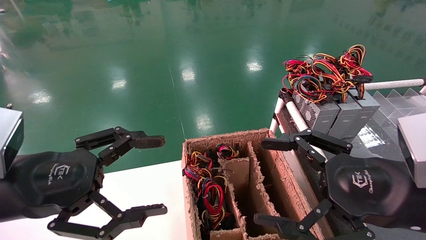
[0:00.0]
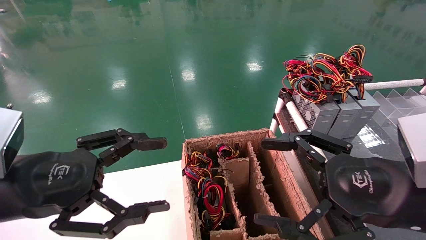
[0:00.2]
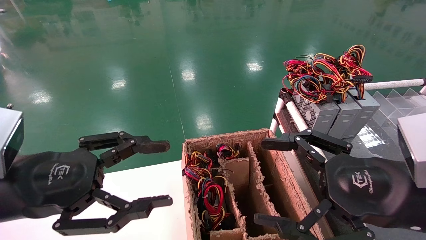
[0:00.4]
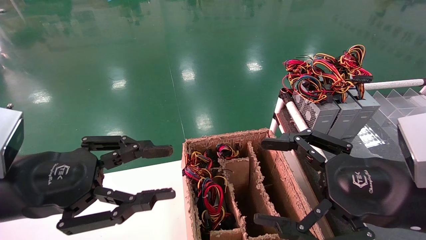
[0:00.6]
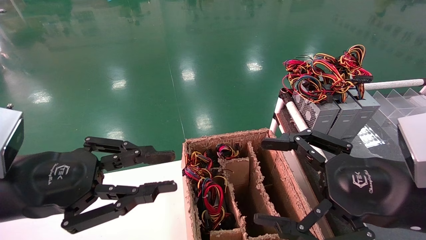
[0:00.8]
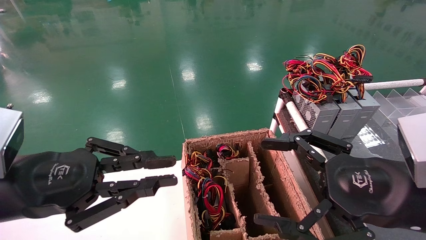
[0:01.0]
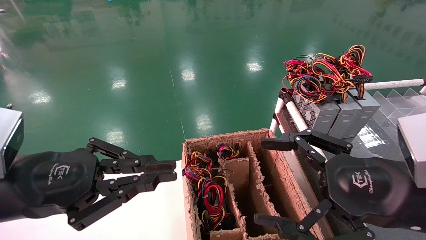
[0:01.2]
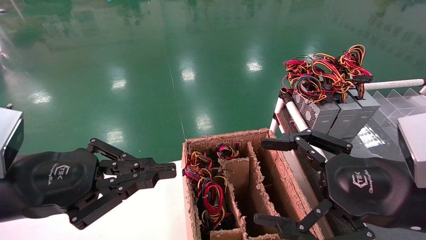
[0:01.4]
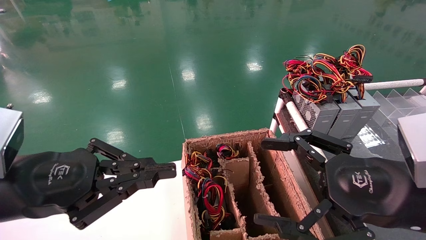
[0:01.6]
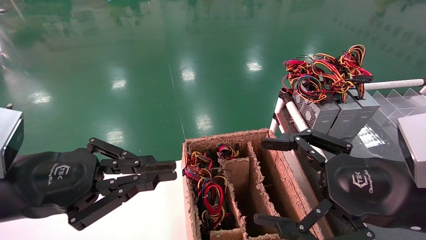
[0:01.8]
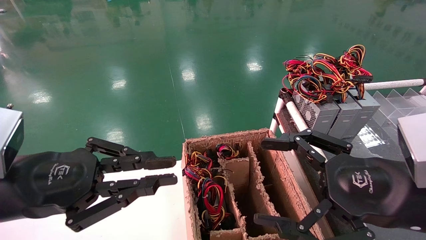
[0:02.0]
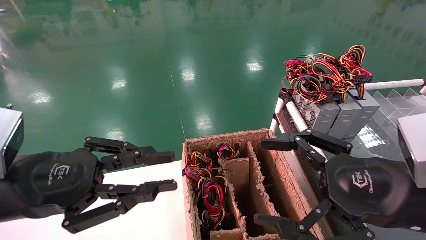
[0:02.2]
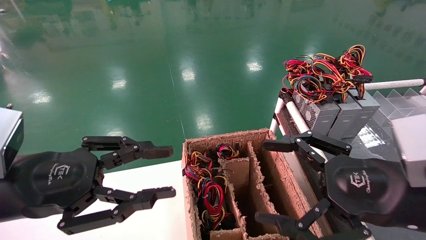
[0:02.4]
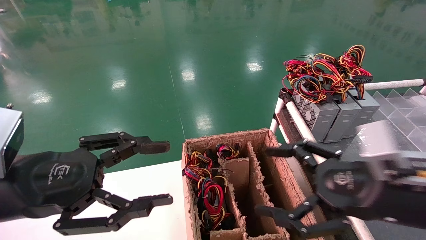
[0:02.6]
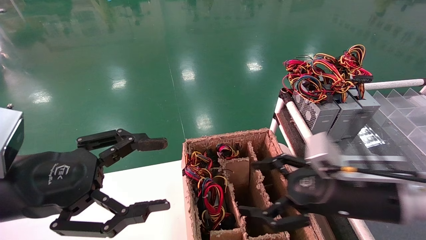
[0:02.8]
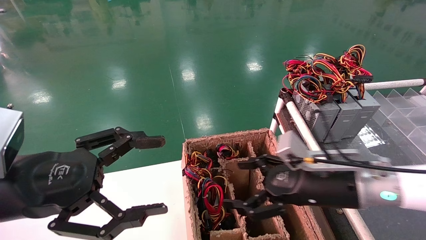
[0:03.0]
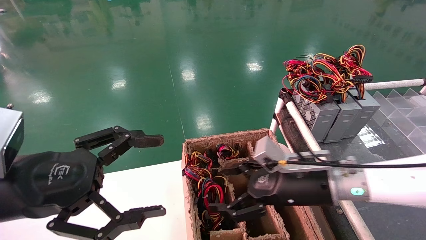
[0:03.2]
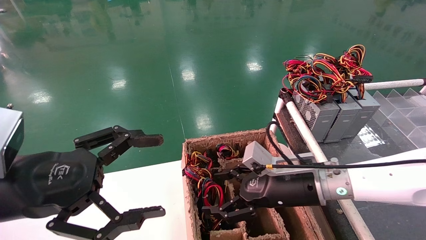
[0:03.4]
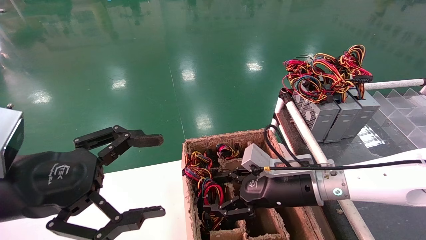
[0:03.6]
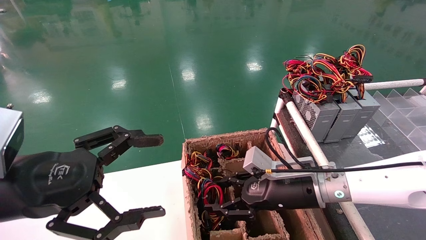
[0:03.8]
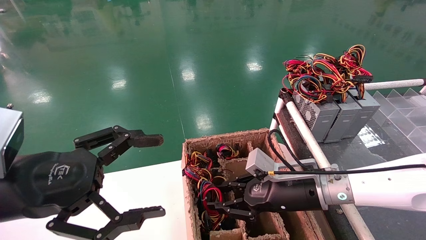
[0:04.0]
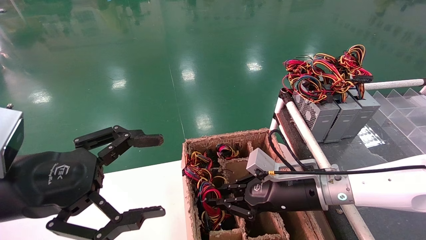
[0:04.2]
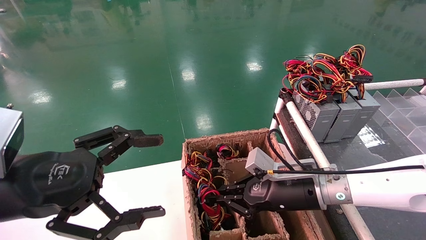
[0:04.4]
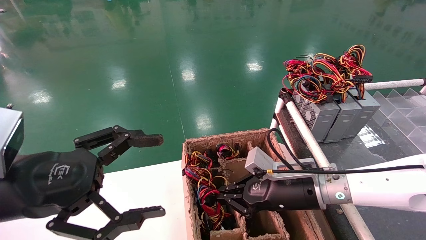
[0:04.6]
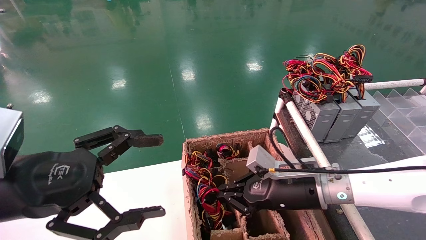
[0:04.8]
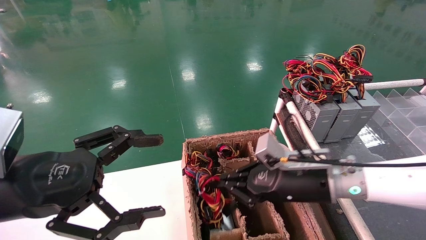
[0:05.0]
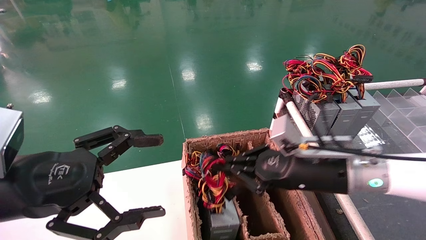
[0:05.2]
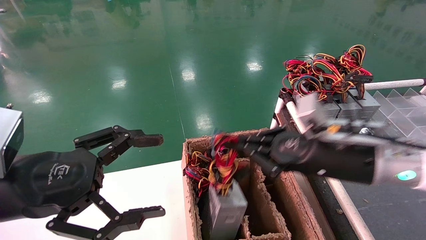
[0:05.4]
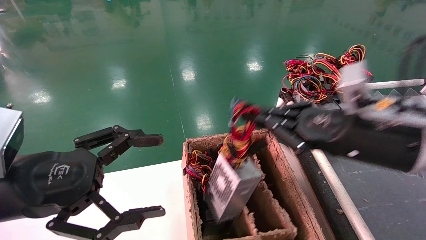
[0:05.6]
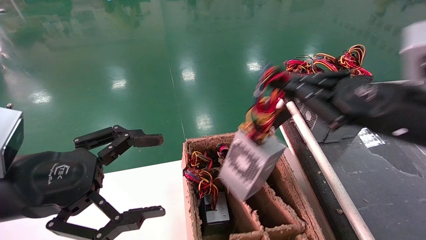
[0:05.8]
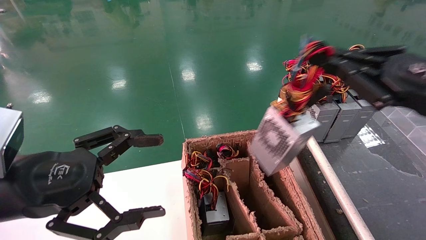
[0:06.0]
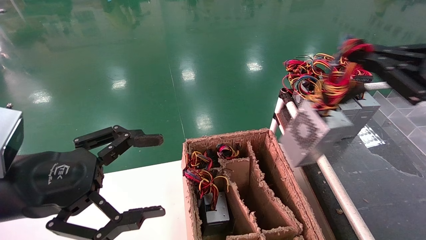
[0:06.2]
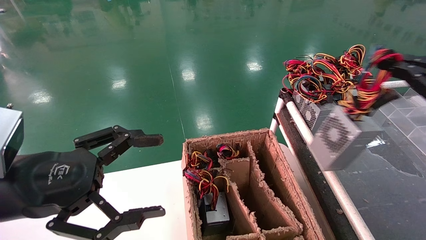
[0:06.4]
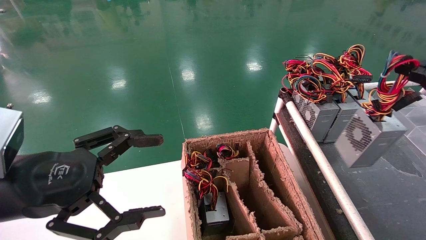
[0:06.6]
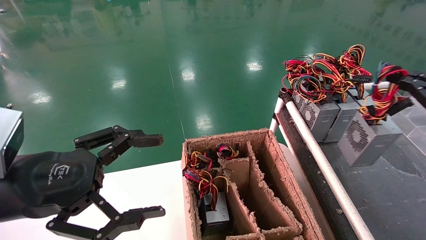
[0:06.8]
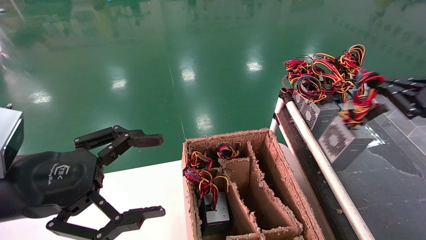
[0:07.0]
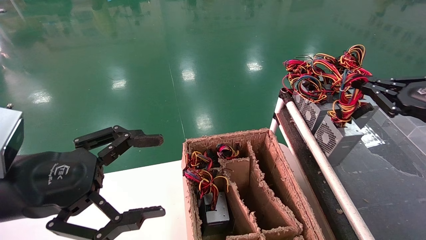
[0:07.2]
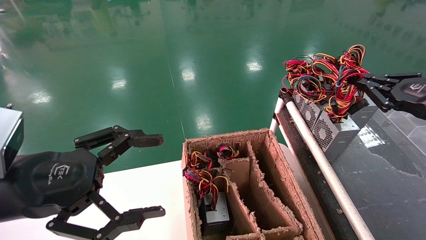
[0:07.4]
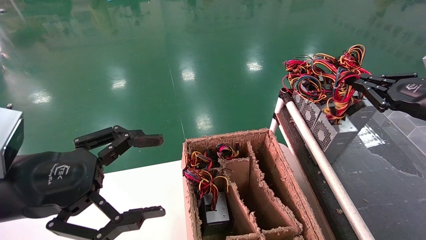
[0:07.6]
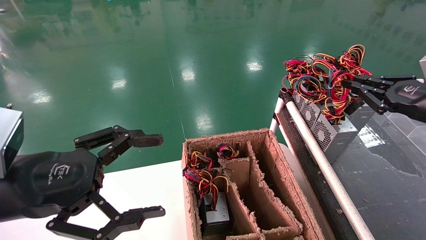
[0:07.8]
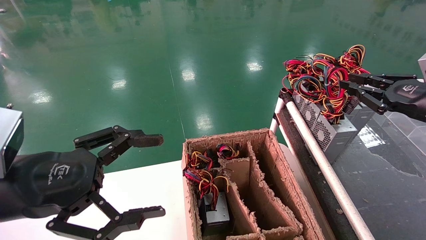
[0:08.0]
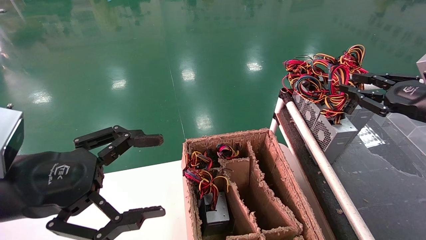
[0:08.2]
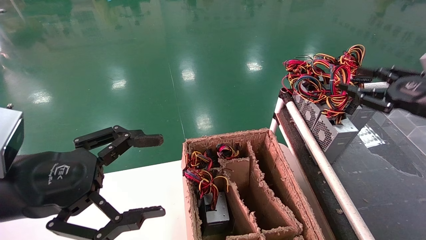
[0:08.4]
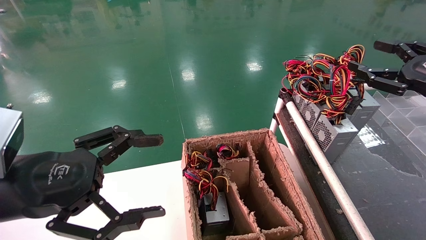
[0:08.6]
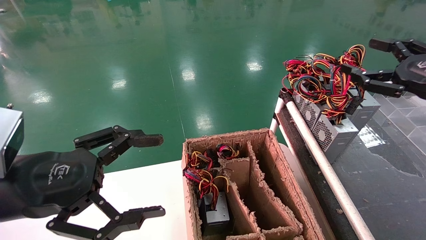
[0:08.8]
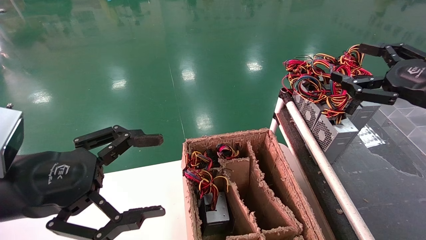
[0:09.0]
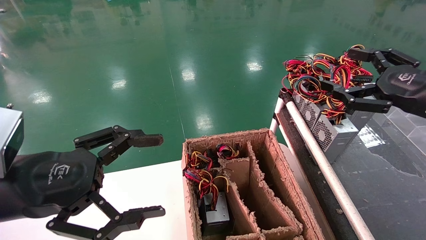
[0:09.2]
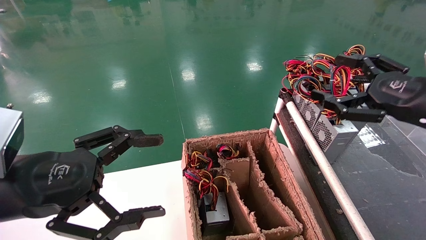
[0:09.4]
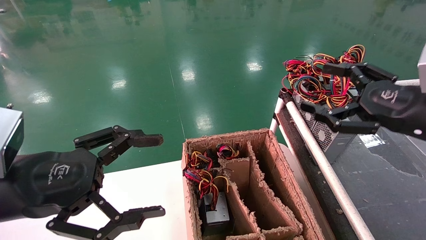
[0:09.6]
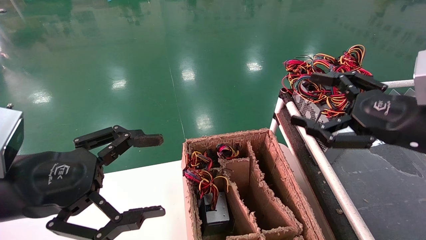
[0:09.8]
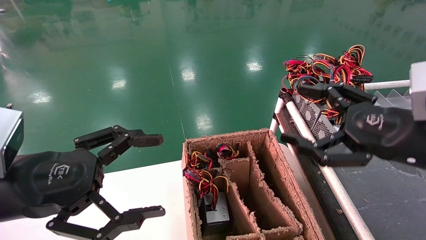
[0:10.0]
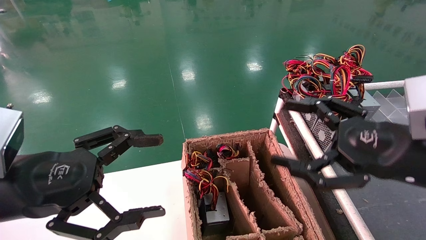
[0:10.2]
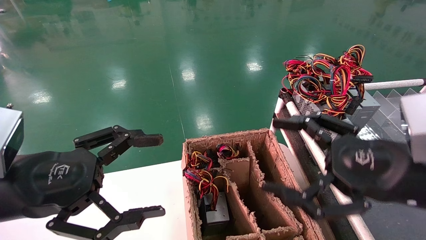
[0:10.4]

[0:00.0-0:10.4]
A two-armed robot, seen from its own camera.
Step, 0:01.4 to 0:04.6: Grab and lift the power supply from the large box.
Step, 0:04.8 to 0:08.0: Place the power supply on the operating table.
0:00.0 to 0:01.4: The left gripper closes its fingers.
0:01.4 to 0:03.0: The left gripper opens. Meanwhile the right gripper is displaced forward and downward by about 15 cm.
0:03.0 to 0:04.4: The right gripper changes place by roughly 5 cm, and closes.
0:04.4 to 0:06.0: The right gripper travels upward, to the right and backward by about 25 cm.
0:06.0 to 0:07.4: The right gripper shifts roughly 10 cm to the right and forward.
0:07.4 to 0:09.0: The right gripper opens up.
0:09.0 to 0:10.4: The right gripper heads to the left, backward and downward, covering about 15 cm.

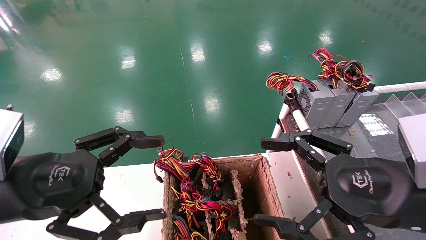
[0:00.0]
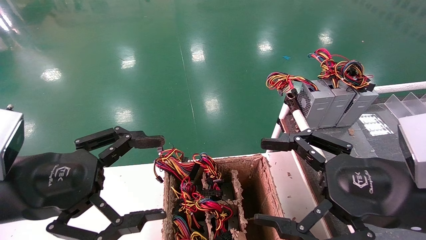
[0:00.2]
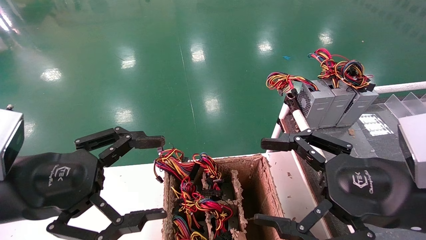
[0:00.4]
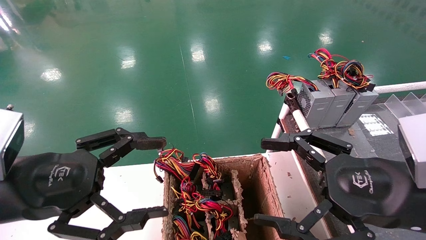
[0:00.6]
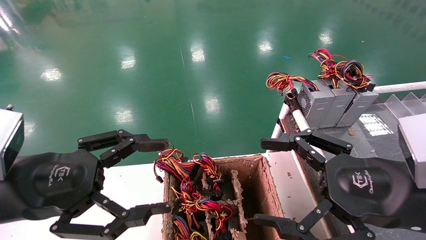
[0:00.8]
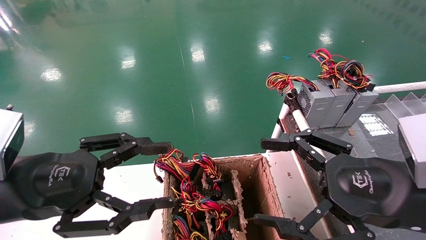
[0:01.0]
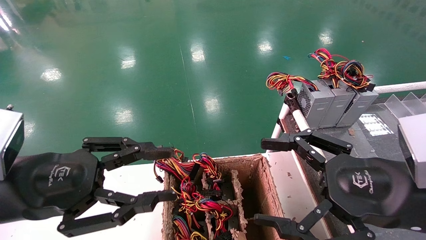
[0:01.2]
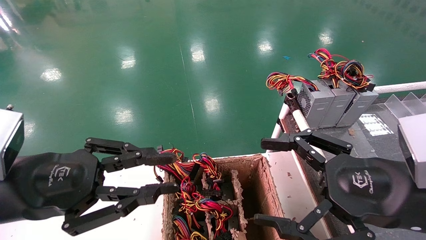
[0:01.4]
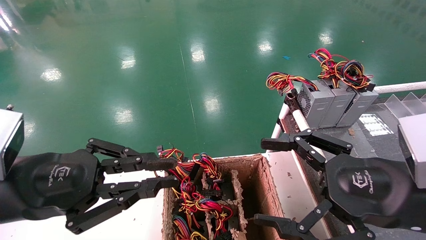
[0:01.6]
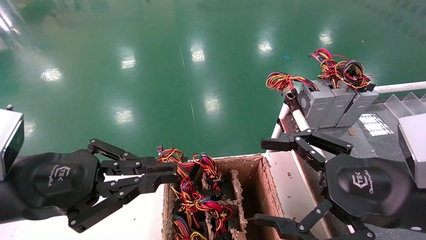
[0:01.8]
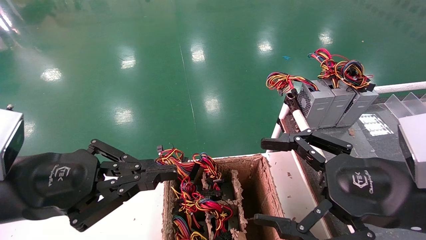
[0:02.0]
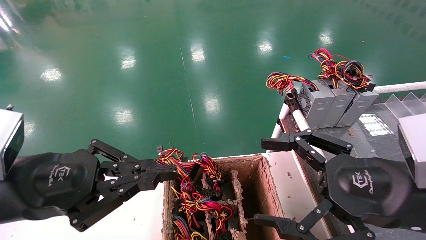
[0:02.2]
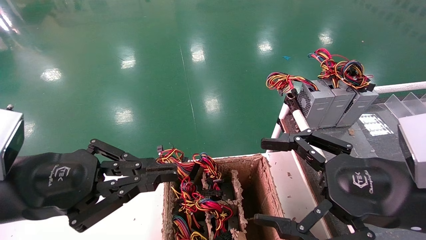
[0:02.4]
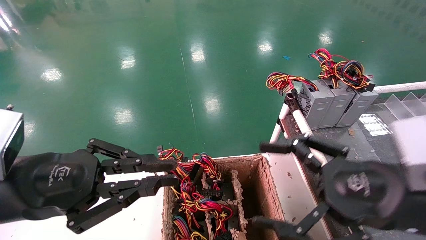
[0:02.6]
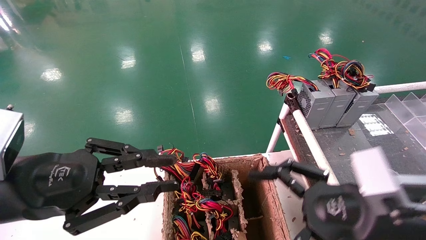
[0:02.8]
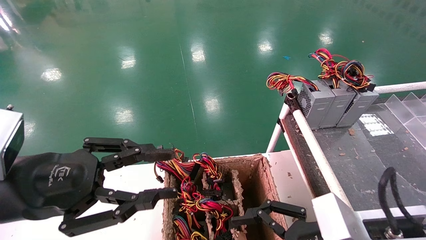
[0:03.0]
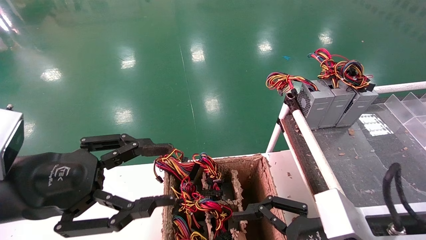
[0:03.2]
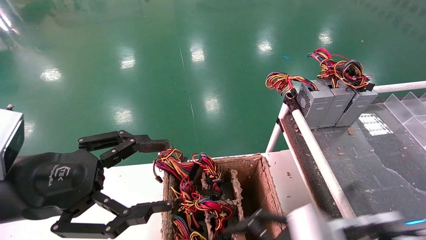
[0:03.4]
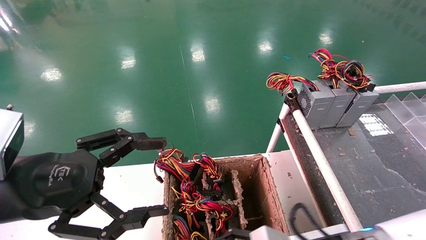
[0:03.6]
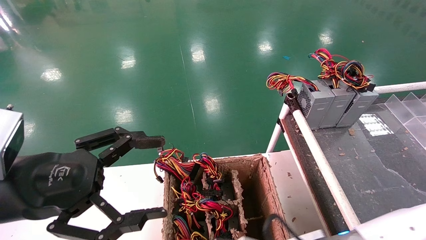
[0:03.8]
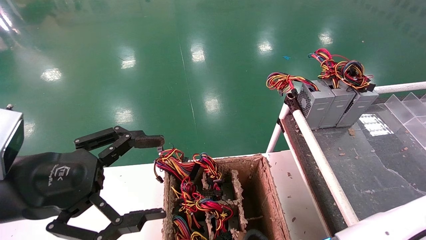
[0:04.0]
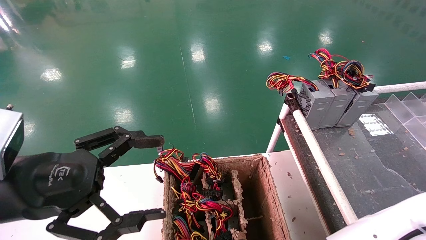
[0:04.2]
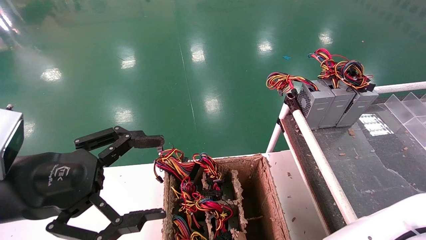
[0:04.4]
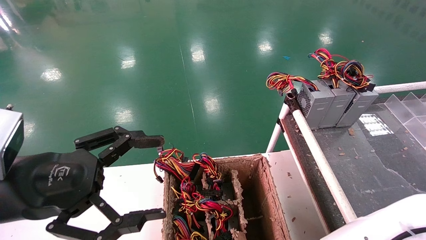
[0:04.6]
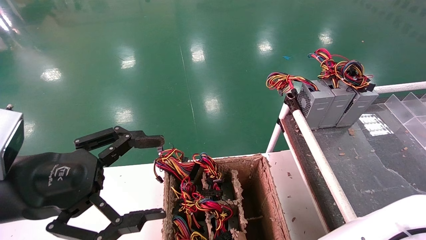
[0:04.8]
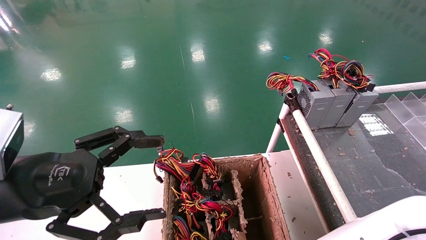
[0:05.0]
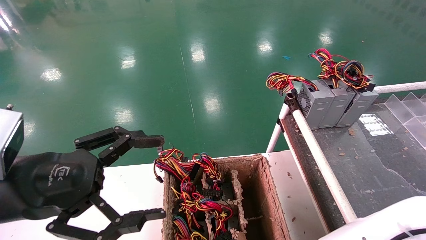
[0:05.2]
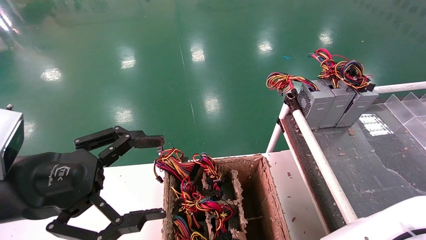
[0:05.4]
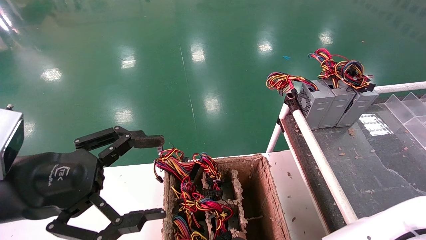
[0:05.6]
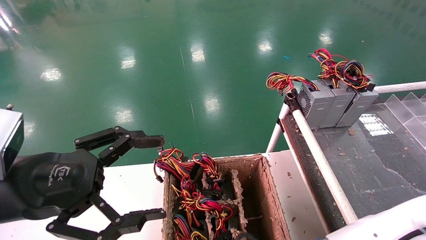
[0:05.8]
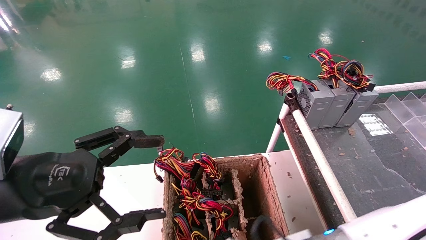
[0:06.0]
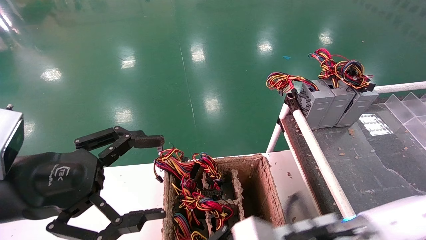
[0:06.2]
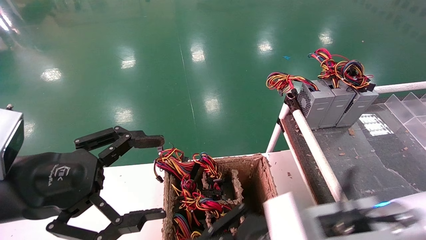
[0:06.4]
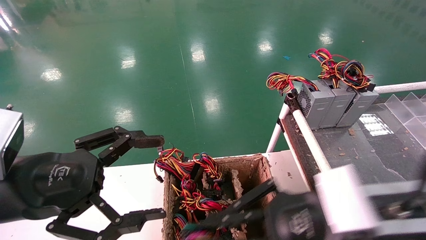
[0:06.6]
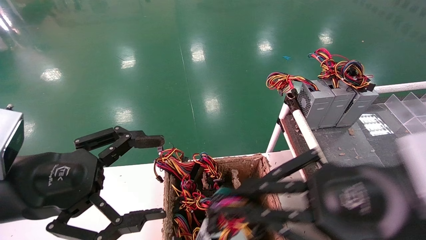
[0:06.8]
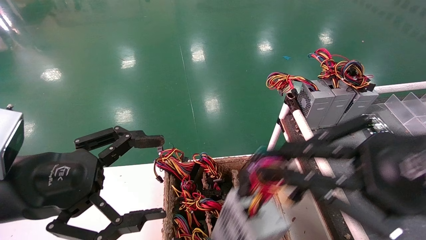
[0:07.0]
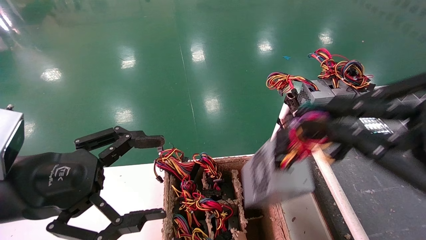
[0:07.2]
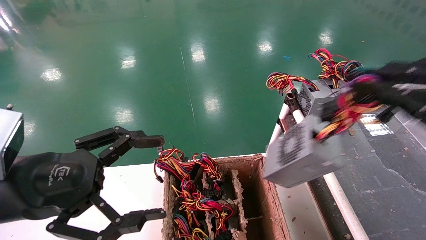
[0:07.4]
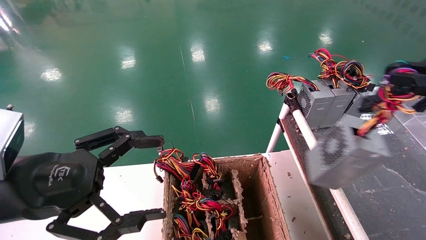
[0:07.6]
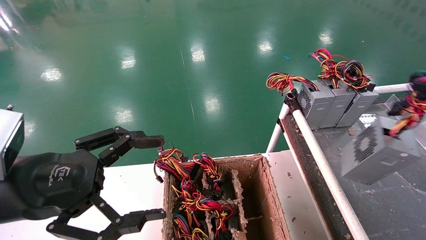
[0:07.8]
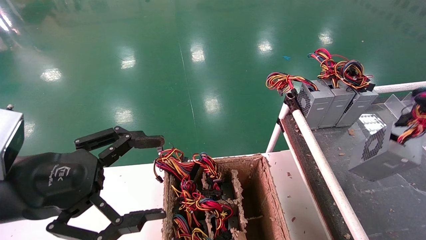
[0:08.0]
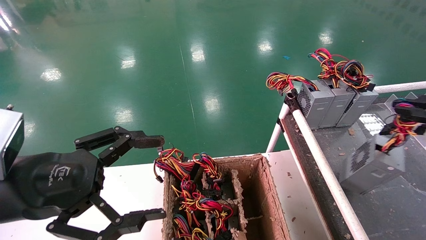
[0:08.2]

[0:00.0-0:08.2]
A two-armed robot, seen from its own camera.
Step, 0:02.6 to 0:05.2: Grab and lift the power supply from the large box.
0:00.0 to 0:01.6: The left gripper closes up.
0:01.6 to 0:03.2: The right gripper travels downward by some 5 cm.
0:03.2 to 0:05.0: The right gripper shifts some 15 cm to the left and downward, and closes up. The left gripper opens its fingers.
0:05.0 to 0:06.6: The right gripper shifts some 20 cm upward and to the right.
0:06.6 to 0:08.2: The right gripper heads to the right, covering about 25 cm.
